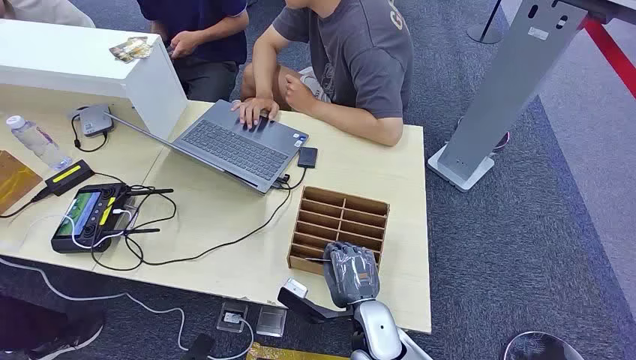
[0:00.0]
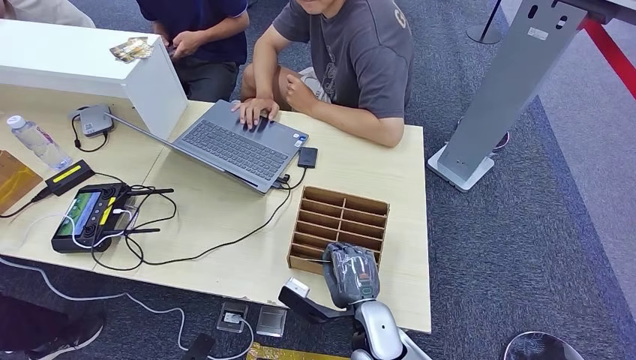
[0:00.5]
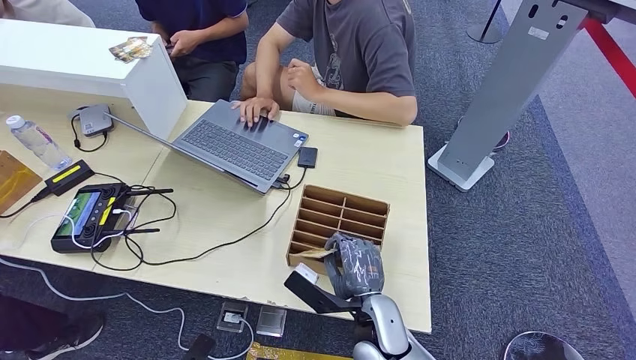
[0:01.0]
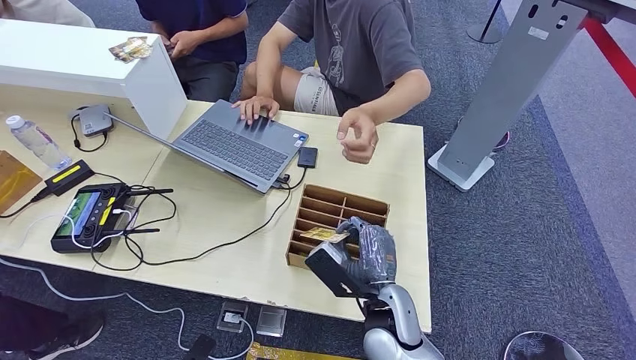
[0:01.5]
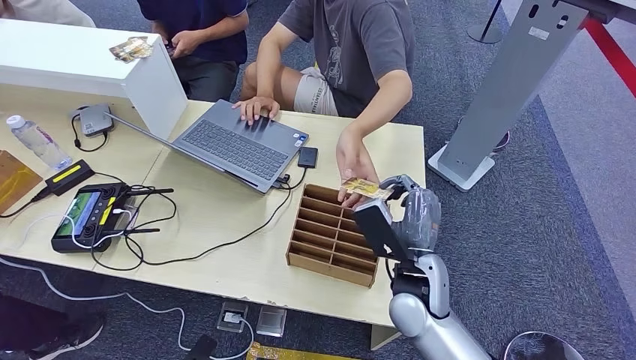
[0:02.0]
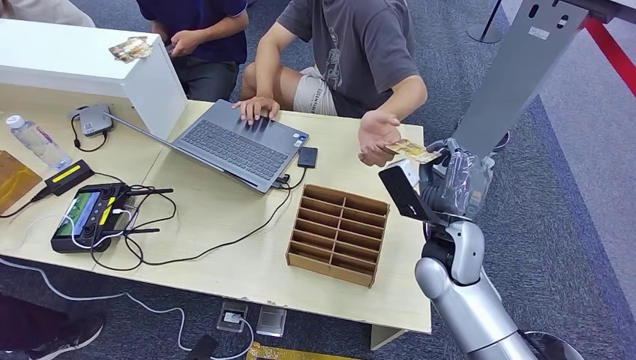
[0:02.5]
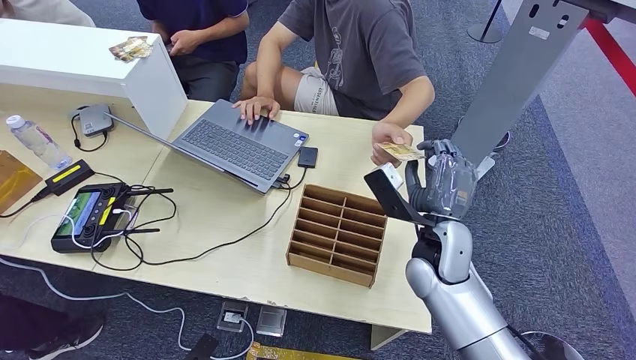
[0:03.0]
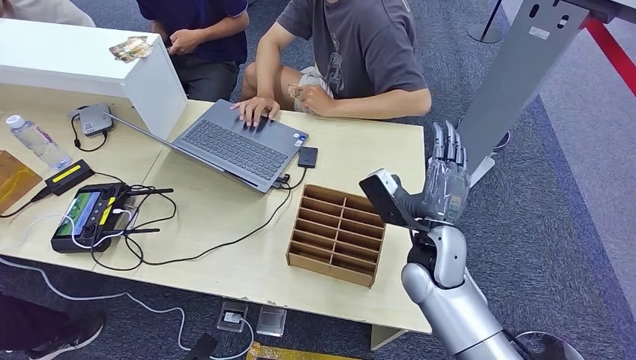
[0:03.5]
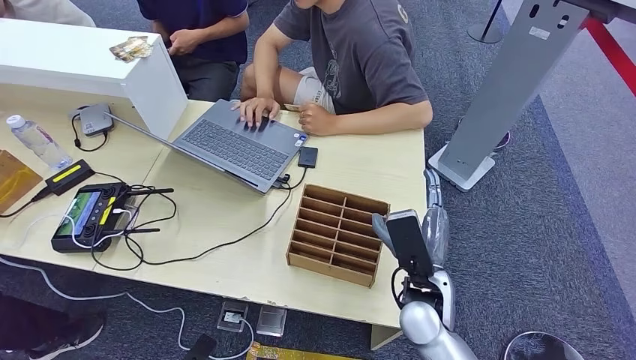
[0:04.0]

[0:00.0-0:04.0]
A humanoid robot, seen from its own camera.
Step, 0:00.0 to 0:01.5: Pick up the key card from the card box.
Step, 0:02.0 to 0:04.0: Hand the key card to the target.
